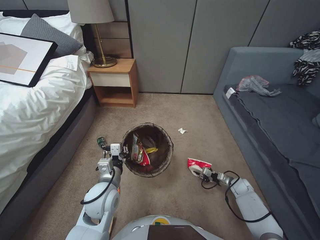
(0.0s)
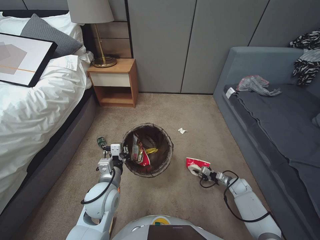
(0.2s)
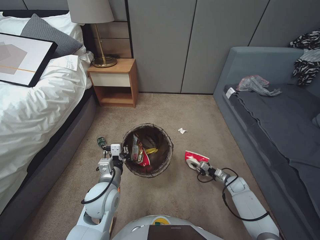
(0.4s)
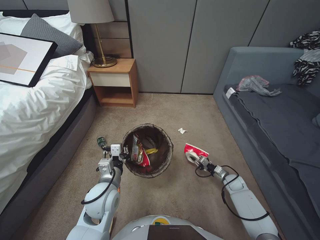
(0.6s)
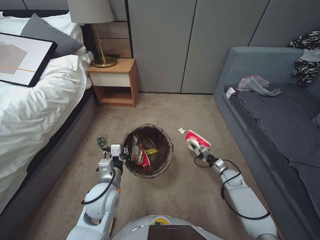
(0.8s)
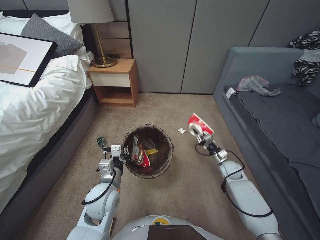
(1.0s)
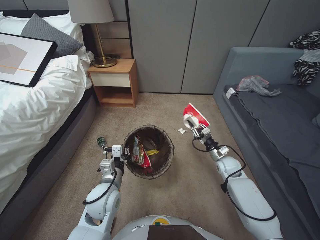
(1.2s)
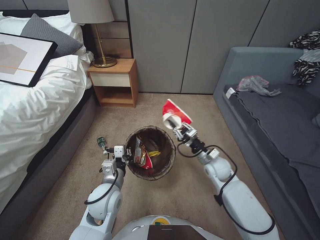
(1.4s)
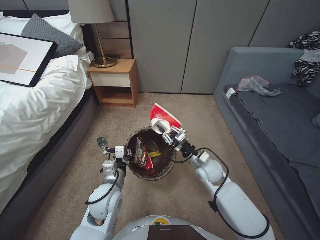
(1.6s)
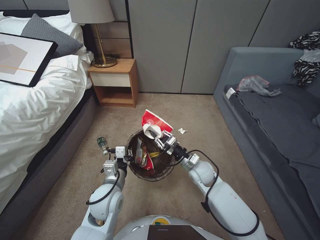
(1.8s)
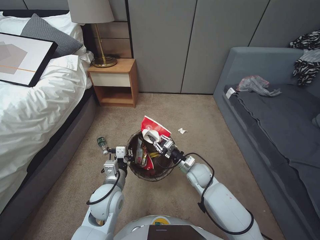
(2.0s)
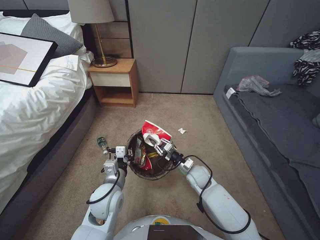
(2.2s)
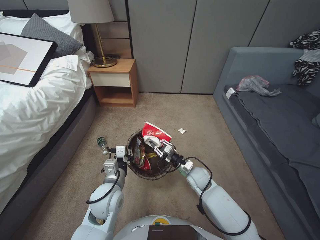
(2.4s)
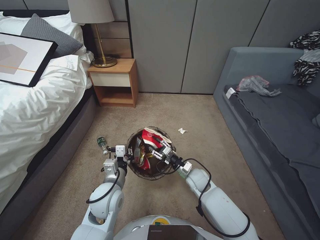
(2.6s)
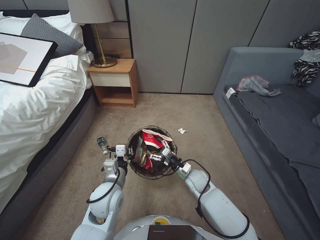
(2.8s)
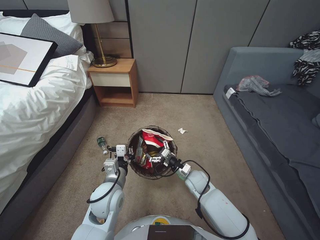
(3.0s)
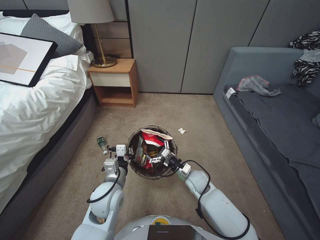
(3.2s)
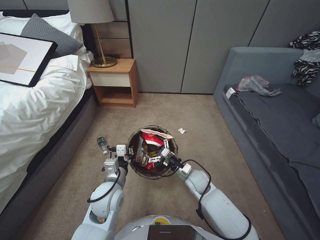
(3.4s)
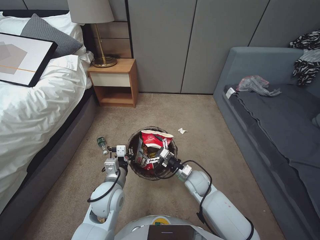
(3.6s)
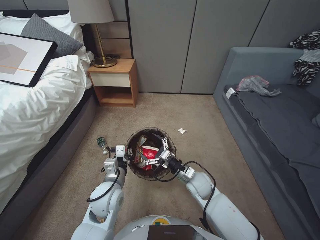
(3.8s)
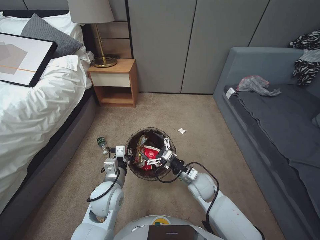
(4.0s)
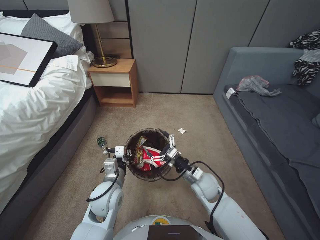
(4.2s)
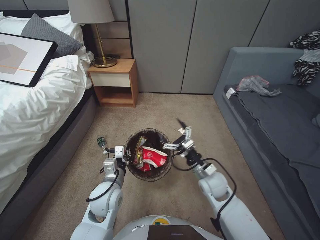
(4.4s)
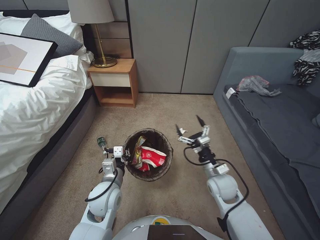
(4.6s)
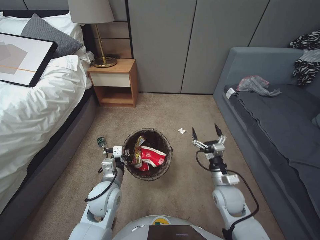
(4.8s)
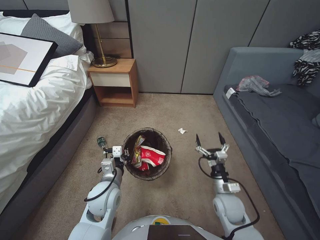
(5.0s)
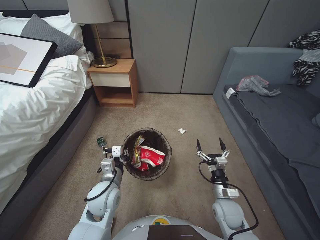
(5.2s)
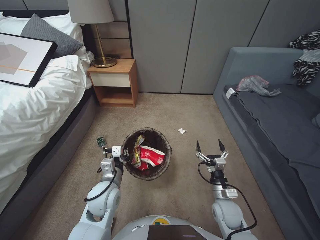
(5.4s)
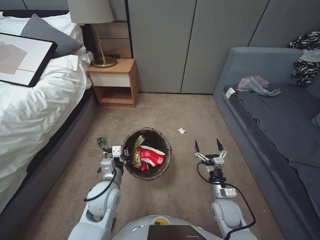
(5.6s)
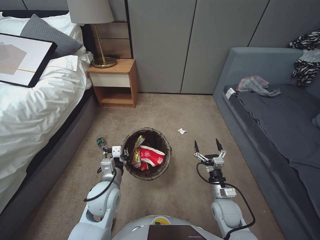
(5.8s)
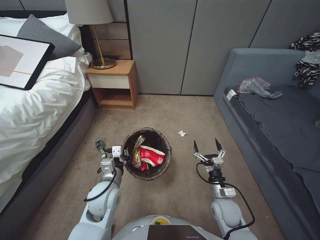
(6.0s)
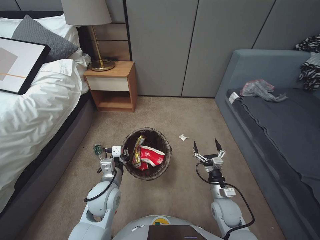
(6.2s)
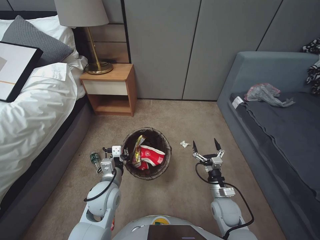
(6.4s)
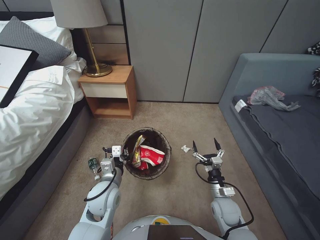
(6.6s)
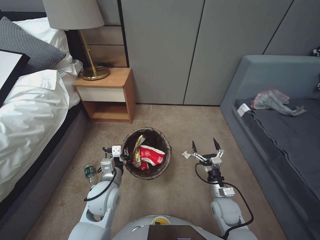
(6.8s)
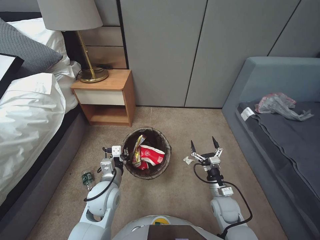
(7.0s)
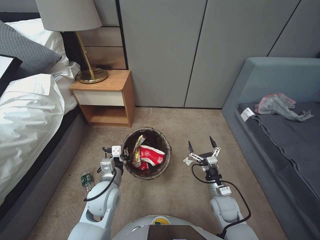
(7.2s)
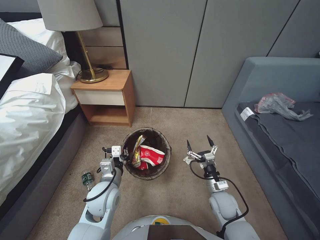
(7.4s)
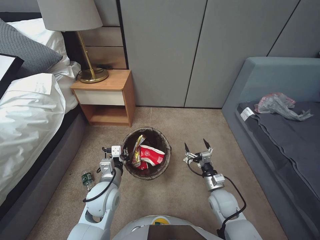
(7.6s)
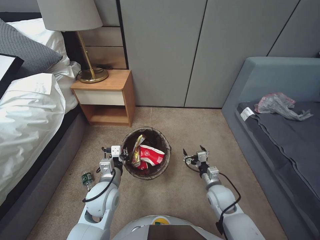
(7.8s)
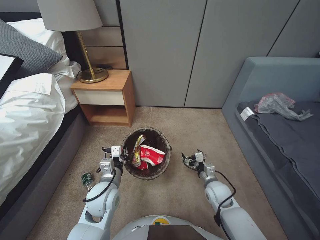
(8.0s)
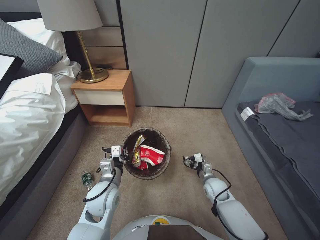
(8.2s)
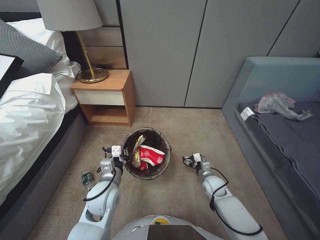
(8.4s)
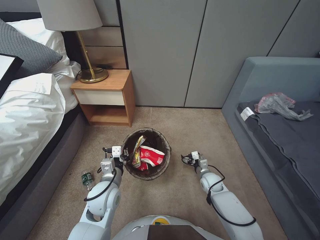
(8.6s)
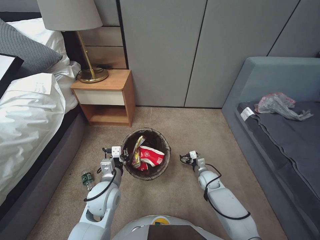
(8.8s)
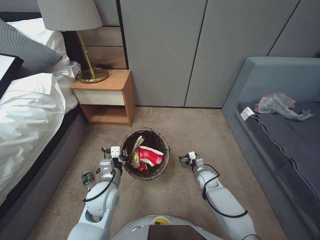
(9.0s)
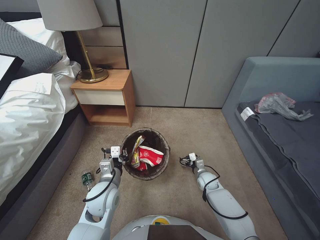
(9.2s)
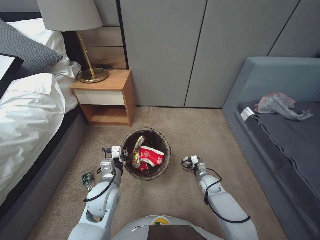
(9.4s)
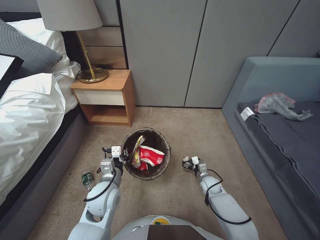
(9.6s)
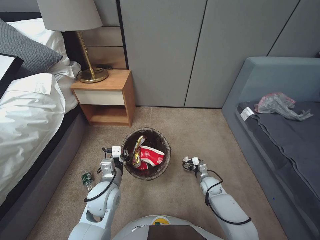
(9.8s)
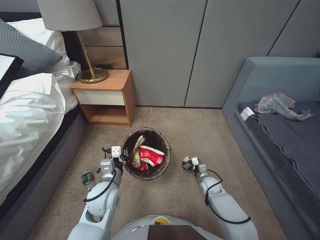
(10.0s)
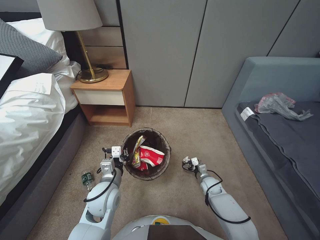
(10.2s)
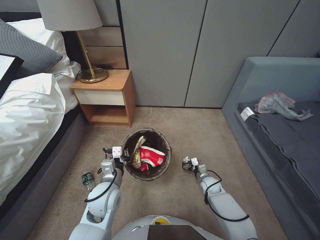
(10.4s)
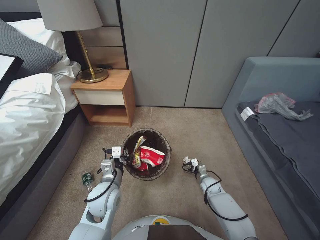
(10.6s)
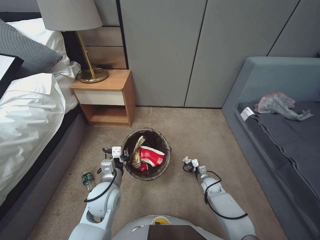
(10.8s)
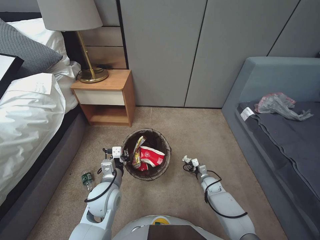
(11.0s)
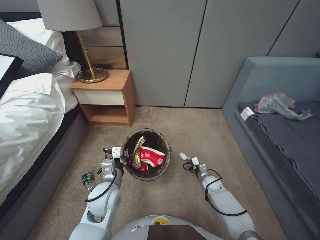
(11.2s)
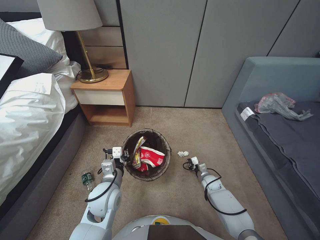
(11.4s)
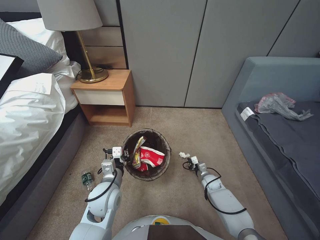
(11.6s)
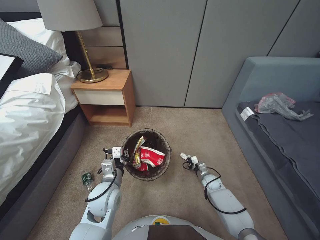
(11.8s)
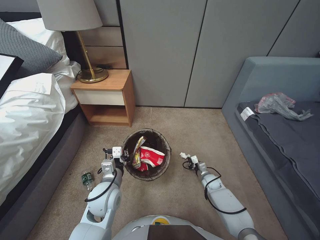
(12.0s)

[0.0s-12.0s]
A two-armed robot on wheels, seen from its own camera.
Task of the whole recording: Pick up the trash bin, then pick up the garbage from the floor and place it into the trash bin.
0.0s to 1.6s: The right gripper is displaced to the left and upward by about 30 cm.
1.6s to 3.0s: The right gripper shifts some 10 cm downward and to the left, and opens.
3.0s to 4.4s: The right gripper moves upward, about 10 cm.
4.4s to 6.0s: The right gripper is displaced downward, backward and to the right by some 15 cm.
7.6s to 9.0s: The right gripper shifts some 15 cm forward and downward.
9.0s to 10.4s: The grippers move only a little.
10.4s to 12.0s: The right gripper closes up.

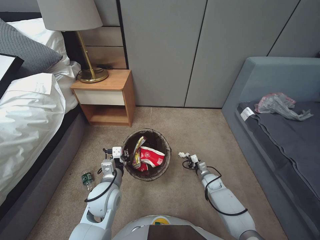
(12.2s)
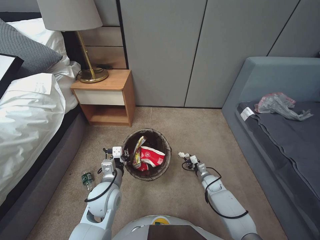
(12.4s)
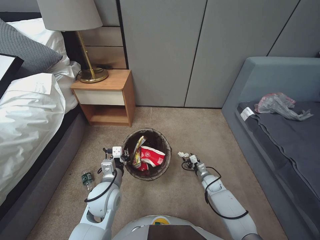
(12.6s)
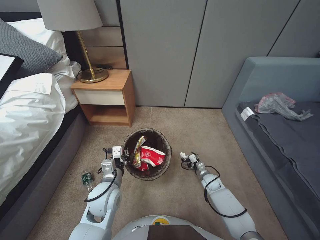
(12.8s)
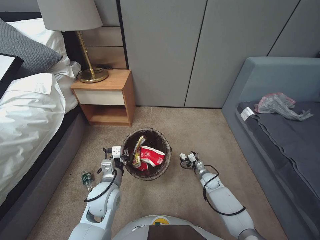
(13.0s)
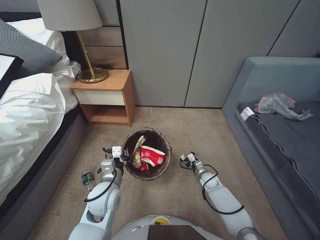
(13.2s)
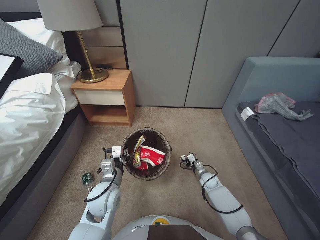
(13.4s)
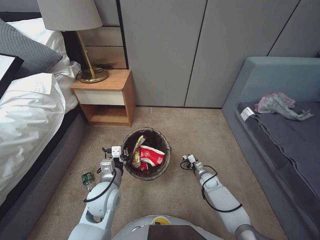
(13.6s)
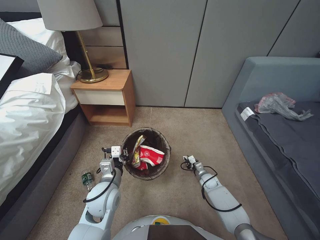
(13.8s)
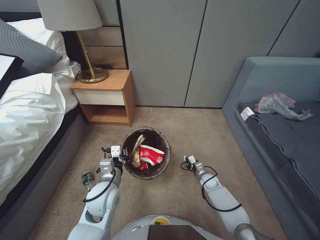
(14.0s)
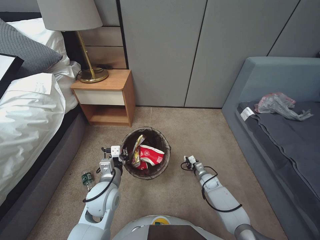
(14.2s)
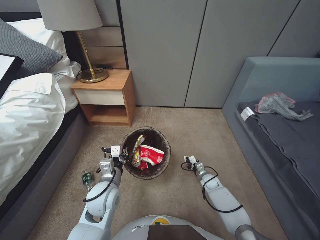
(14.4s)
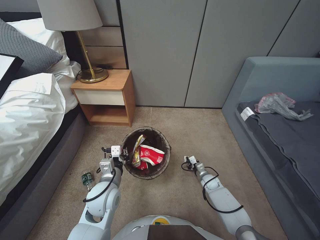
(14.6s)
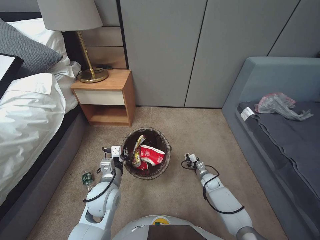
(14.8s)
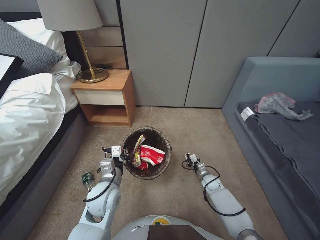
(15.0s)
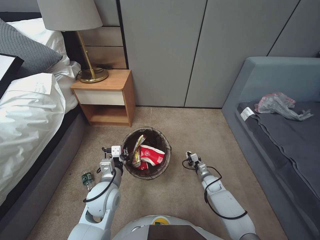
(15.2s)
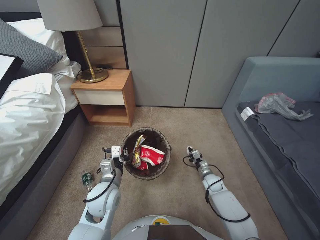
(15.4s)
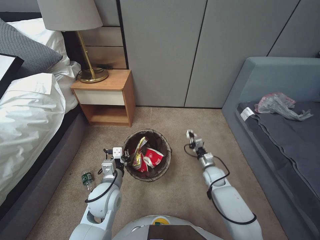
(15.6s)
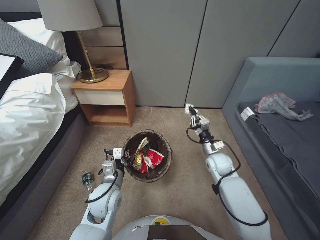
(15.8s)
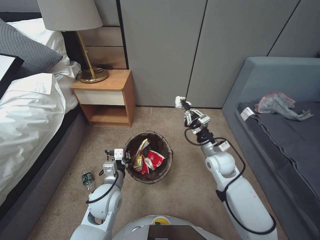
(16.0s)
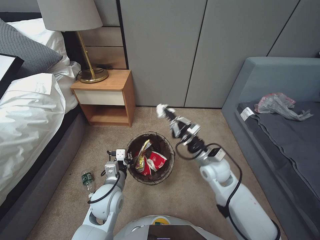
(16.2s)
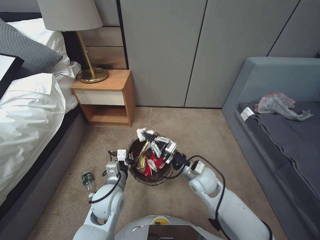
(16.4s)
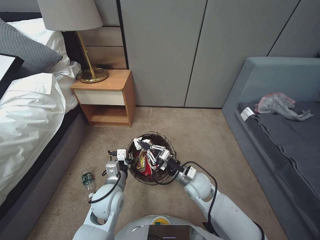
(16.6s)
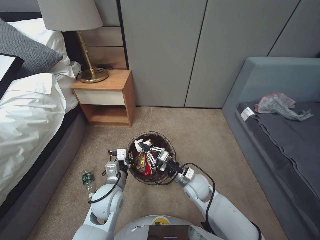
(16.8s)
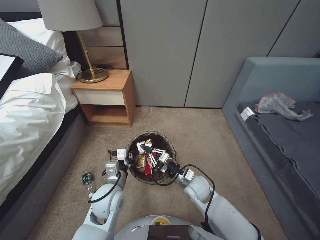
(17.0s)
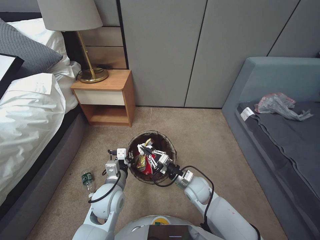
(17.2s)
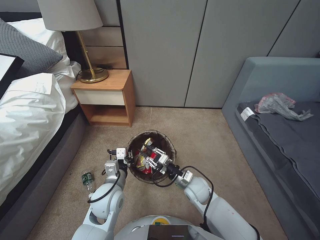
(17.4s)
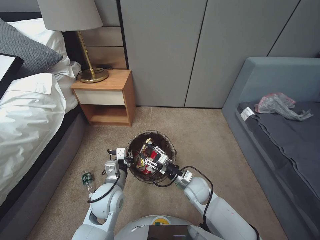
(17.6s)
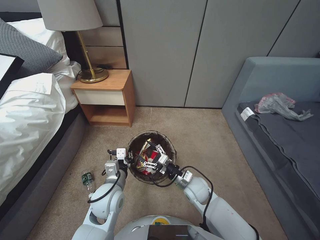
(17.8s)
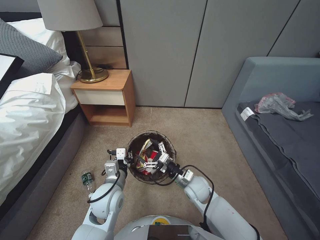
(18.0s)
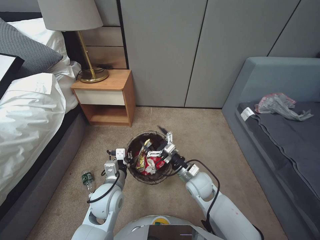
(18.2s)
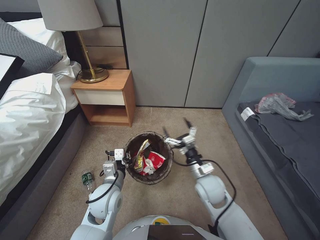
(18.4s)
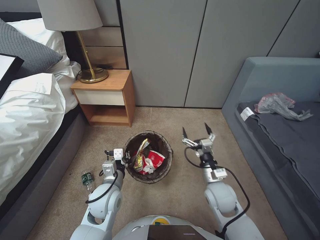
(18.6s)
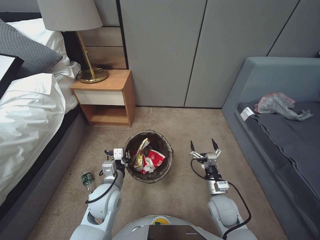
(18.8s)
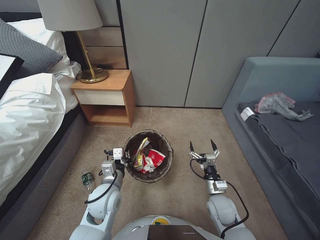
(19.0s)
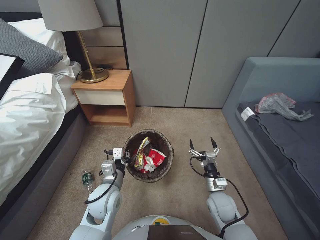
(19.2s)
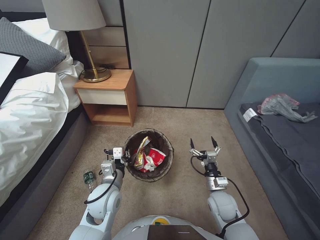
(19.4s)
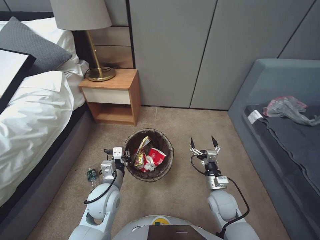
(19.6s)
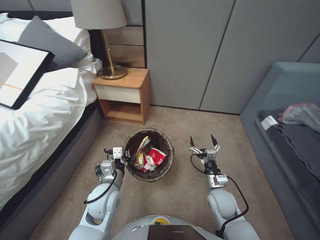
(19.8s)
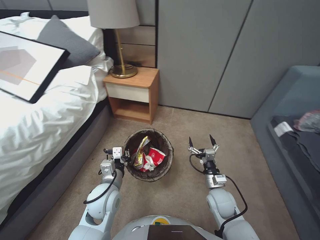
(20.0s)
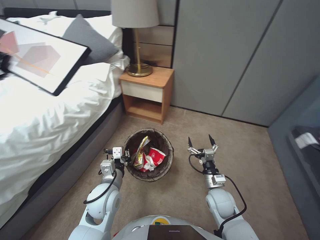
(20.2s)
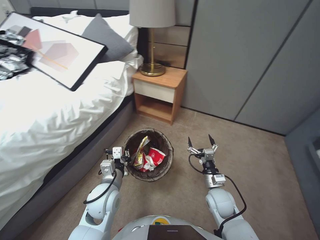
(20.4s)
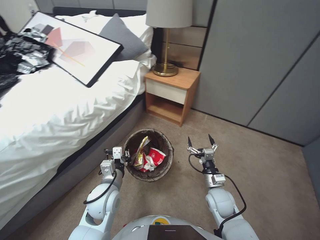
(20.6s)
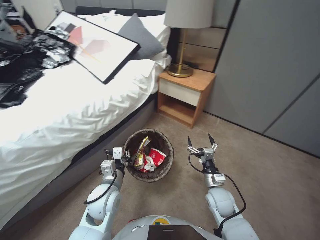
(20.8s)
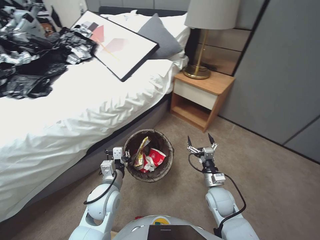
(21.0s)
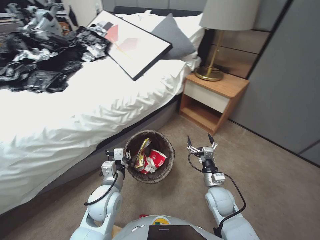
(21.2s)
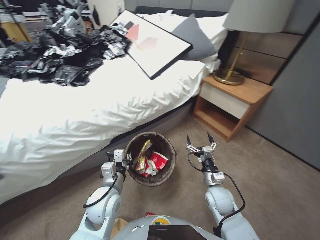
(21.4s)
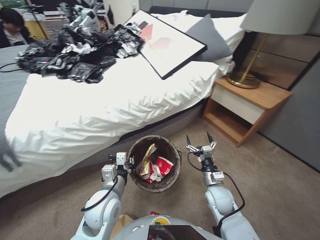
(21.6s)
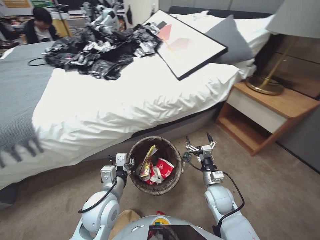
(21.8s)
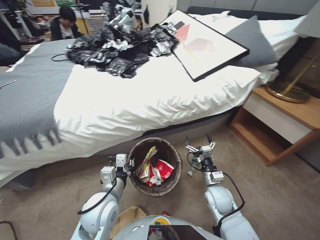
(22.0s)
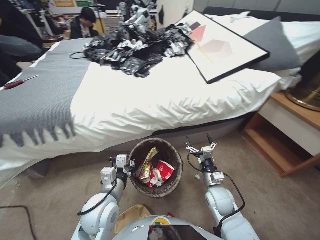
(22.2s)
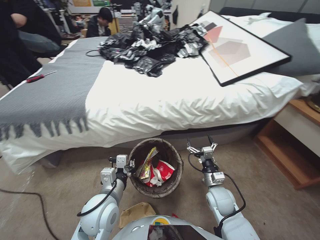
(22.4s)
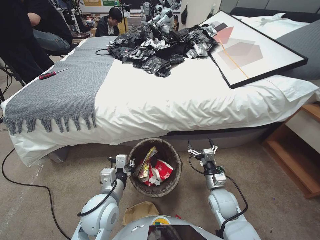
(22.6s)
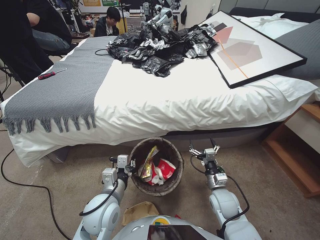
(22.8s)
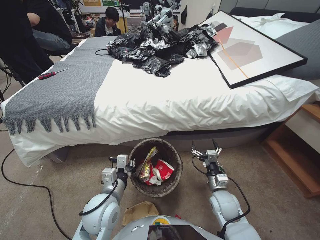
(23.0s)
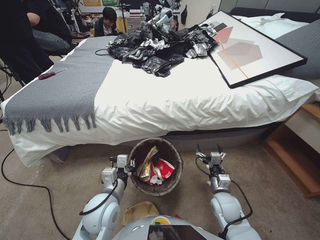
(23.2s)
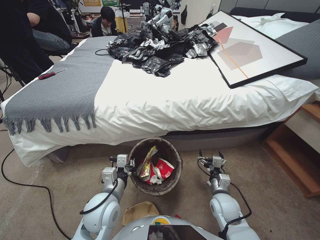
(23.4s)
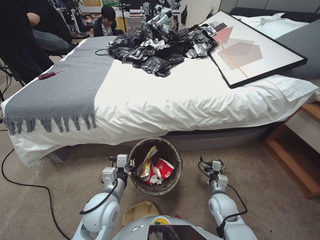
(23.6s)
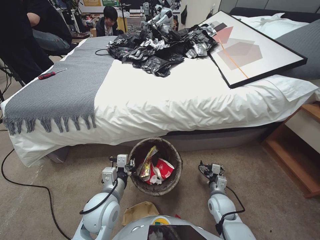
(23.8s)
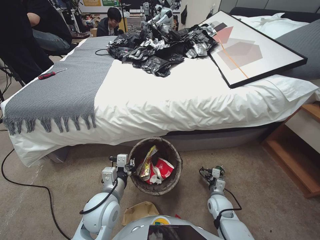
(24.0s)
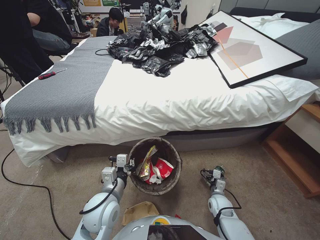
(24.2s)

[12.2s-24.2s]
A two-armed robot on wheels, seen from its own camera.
Task of the whole recording: Pick up the trash bin, then pick up the garbage from the floor and place it into the trash bin.
12.2s to 13.8s: The right gripper opens, then closes once more.
13.8s to 15.2s: The right gripper closes.
15.2s to 16.6s: The right gripper heads upward and to the left, covering roughly 25 cm.
16.6s to 18.2s: The right gripper opens its fingers.
18.2s to 19.8s: The right gripper heads to the right and backward, covering roughly 10 cm.
22.6s to 24.2s: The right gripper shifts about 15 cm downward and to the right.
